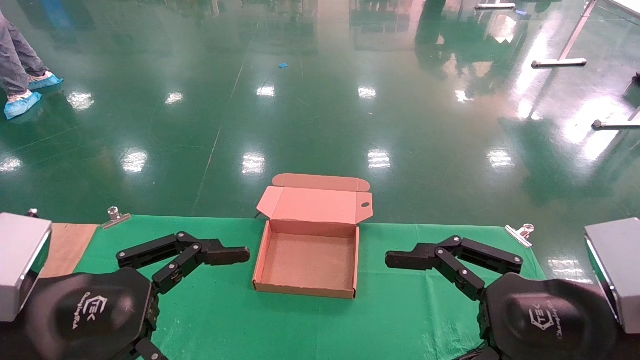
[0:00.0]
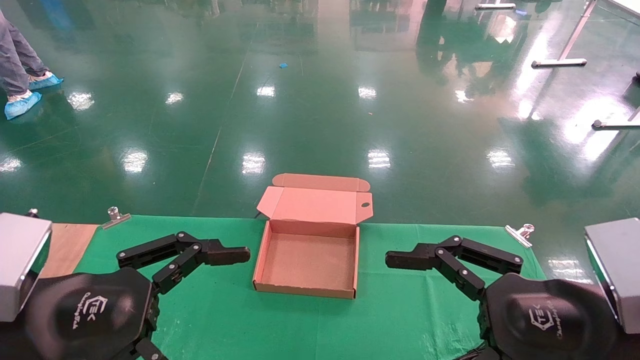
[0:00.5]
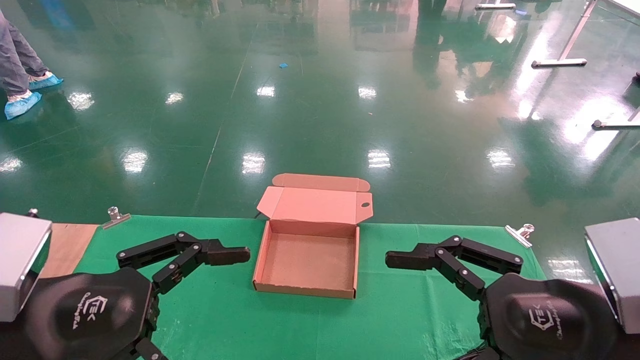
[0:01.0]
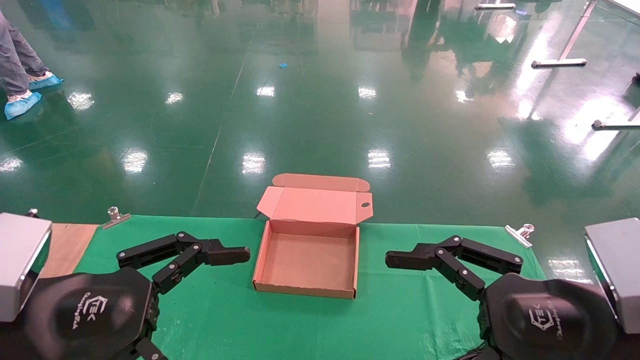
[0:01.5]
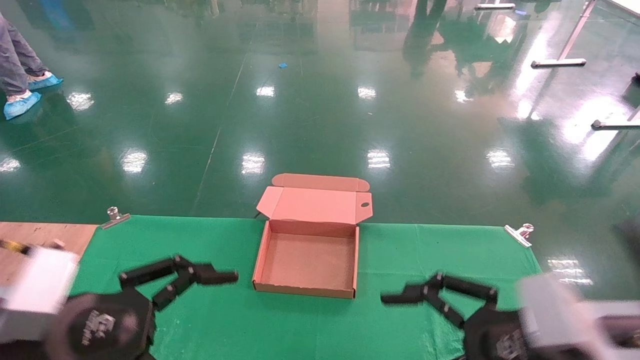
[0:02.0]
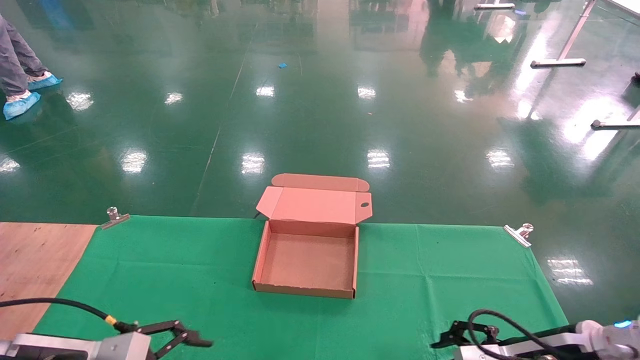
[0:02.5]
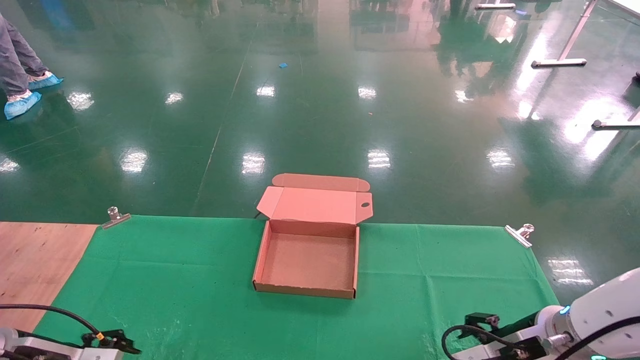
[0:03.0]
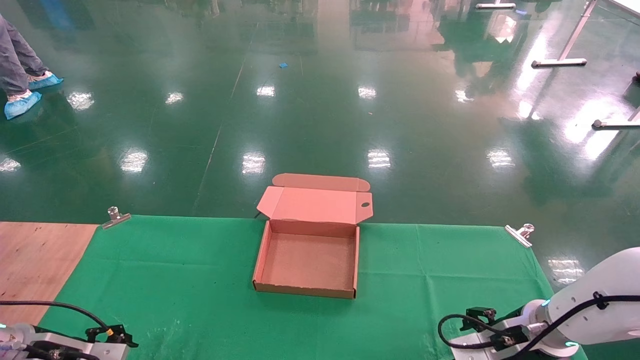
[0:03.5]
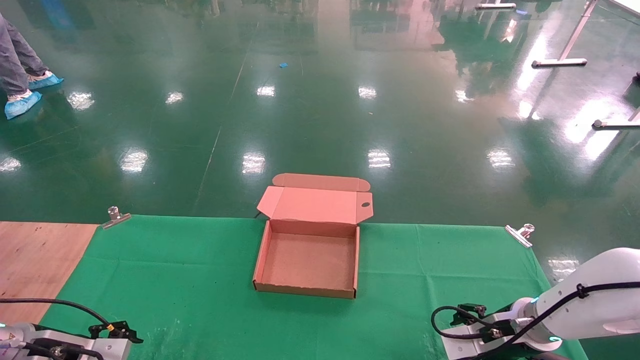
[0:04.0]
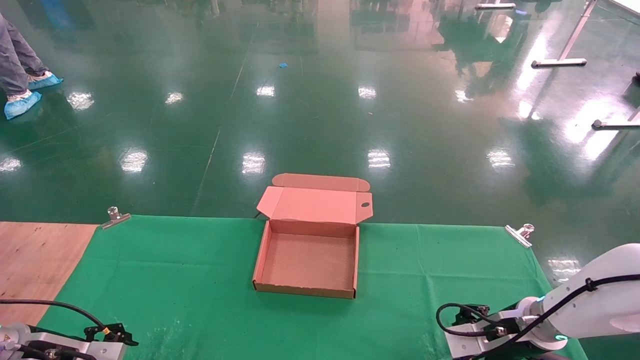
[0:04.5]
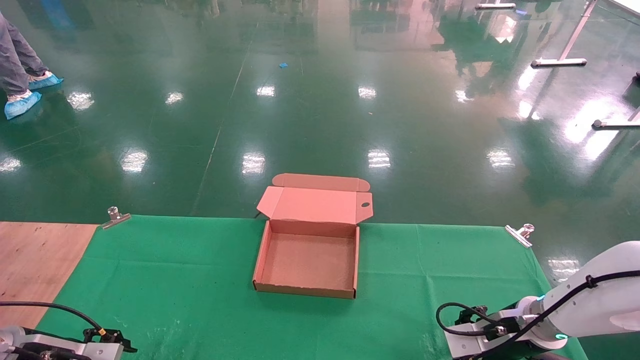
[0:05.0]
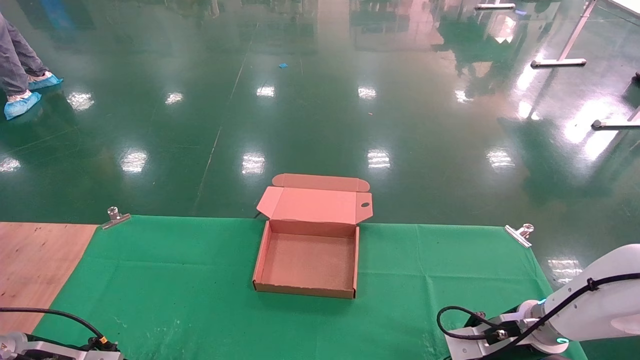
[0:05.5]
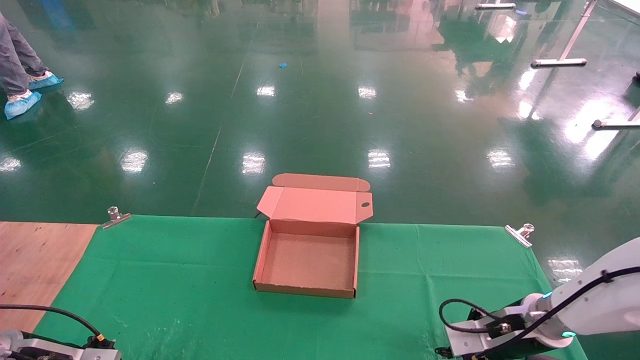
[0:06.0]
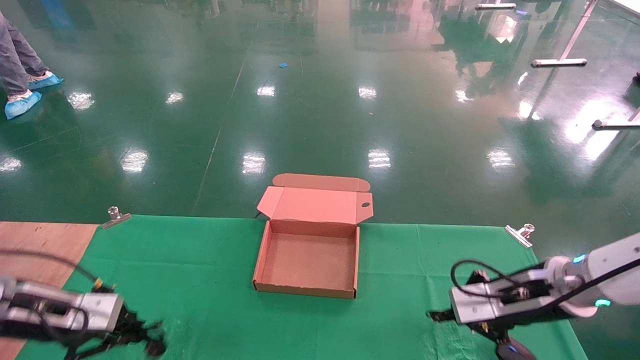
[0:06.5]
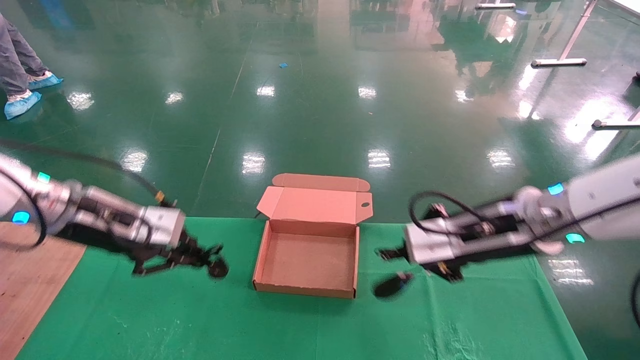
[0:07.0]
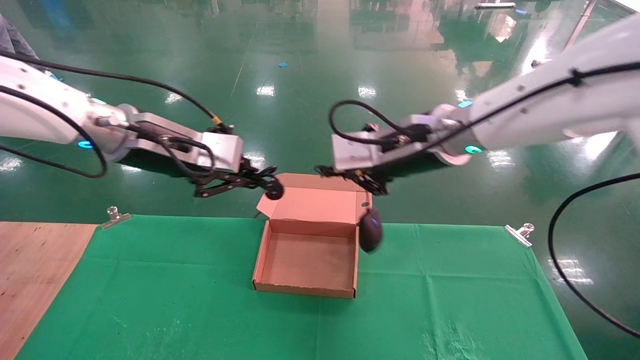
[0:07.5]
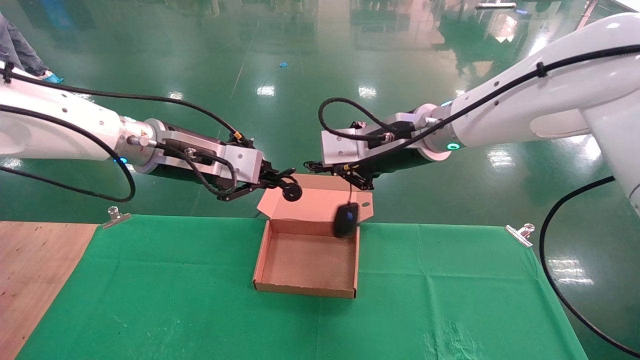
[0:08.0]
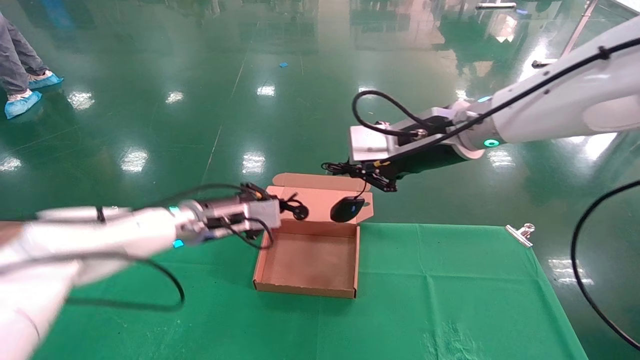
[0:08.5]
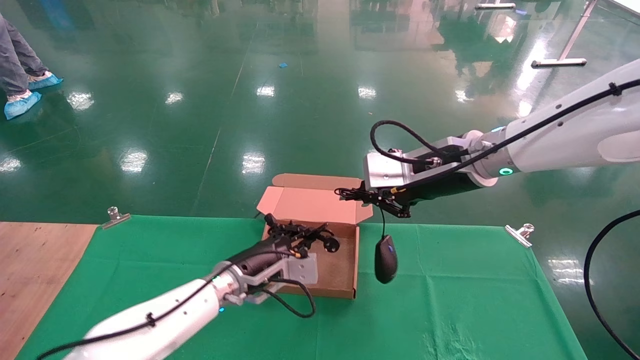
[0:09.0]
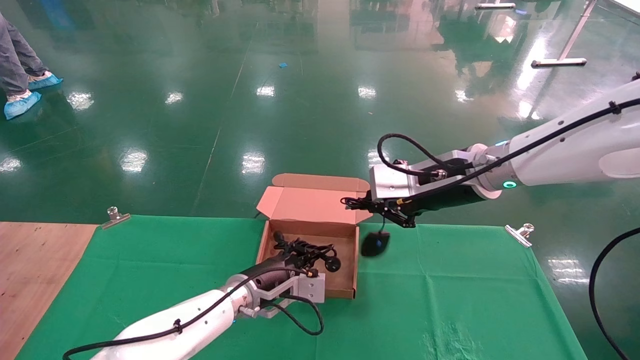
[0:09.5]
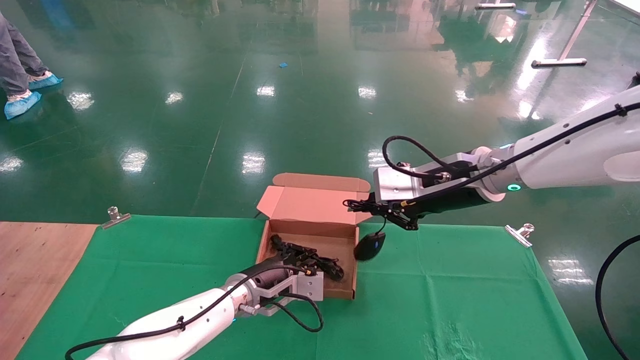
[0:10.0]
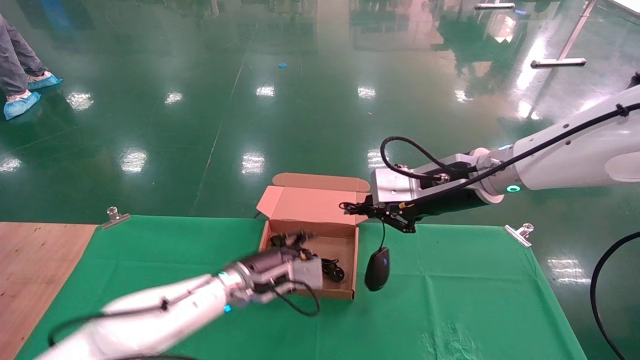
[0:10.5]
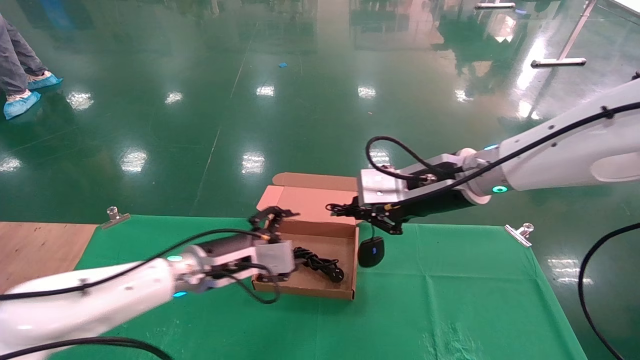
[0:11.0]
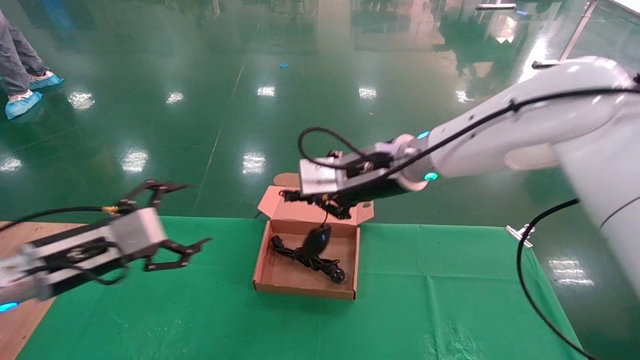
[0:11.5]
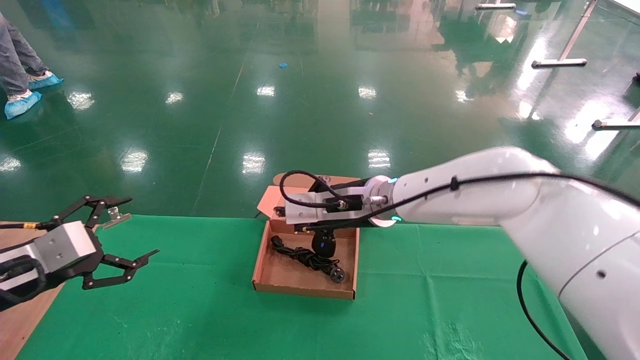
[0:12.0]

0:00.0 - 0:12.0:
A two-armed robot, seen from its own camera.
Step, 0:02.0 - 0:06.5: Grab and lift both the mouse and power cord from the accessory packaging area at the same time.
0:00.0 - 0:02.0: The grippers move only a little.
0:02.0 - 0:04.0: The right gripper travels forward and downward by some 25 cm. The left gripper is displaced forward, downward and to the left by some 25 cm.
0:04.0 - 0:06.0: The left gripper closes up; the right gripper closes.
0:06.0 - 0:08.0: The right gripper travels upward and to the left by approximately 30 cm; the left gripper goes some 35 cm upward and to the right.
0:08.0 - 0:10.0: The right gripper moves to the right and downward, about 10 cm; the left gripper is displaced downward by about 25 cm.
0:10.0 - 0:12.0: The right gripper goes about 15 cm to the left and downward; the left gripper heads to the left and backward, covering approximately 30 cm, and opens up.

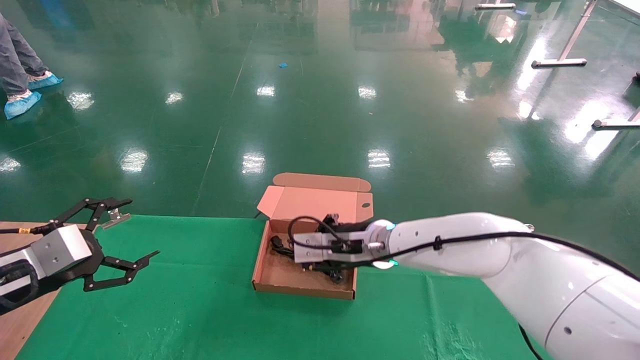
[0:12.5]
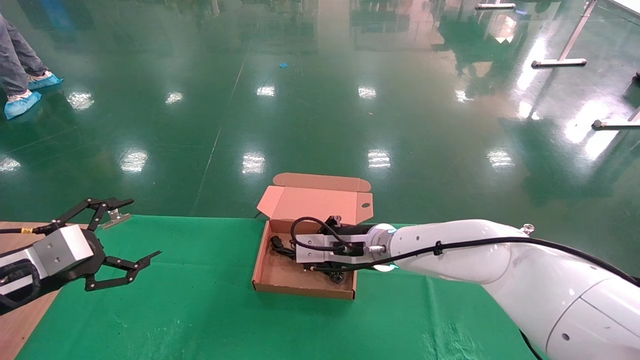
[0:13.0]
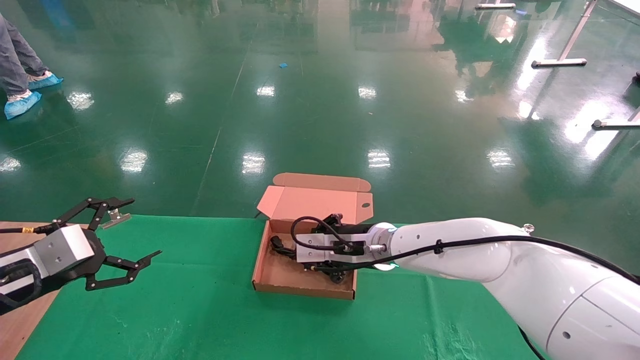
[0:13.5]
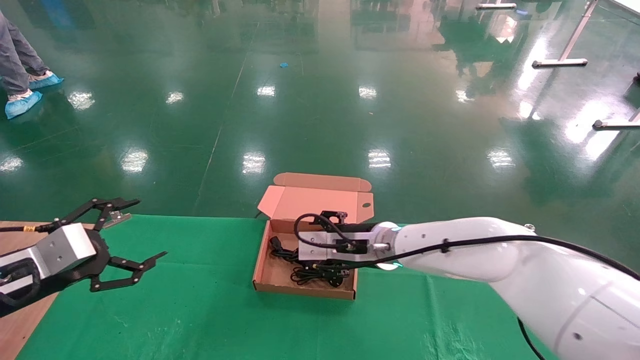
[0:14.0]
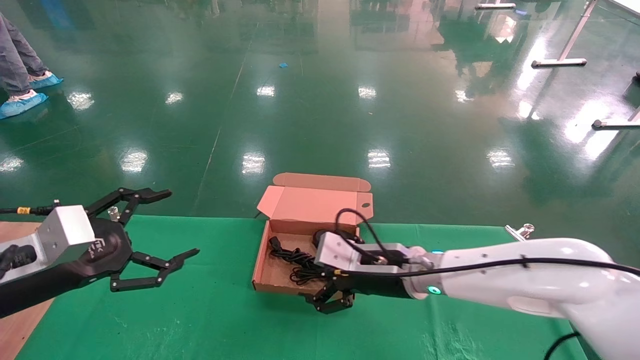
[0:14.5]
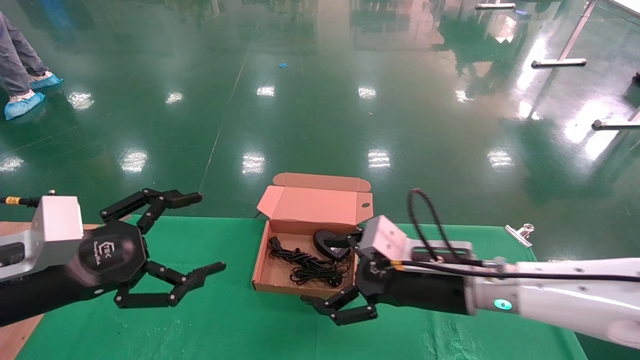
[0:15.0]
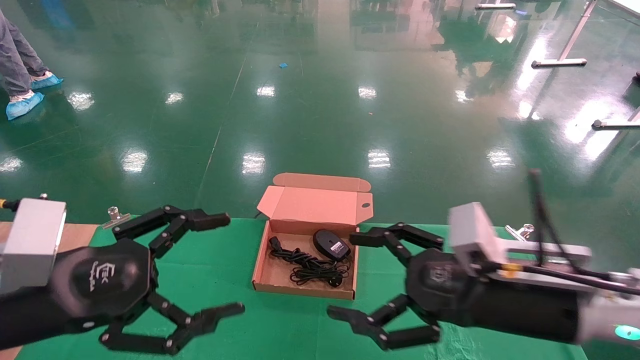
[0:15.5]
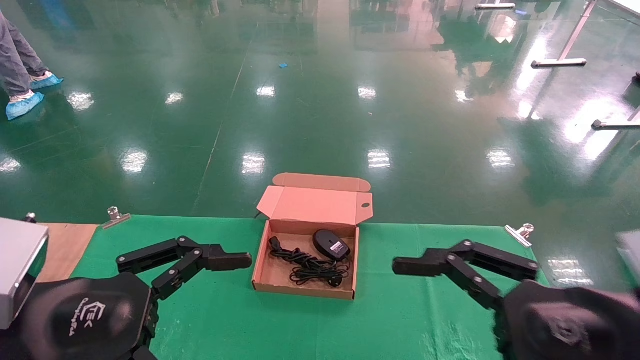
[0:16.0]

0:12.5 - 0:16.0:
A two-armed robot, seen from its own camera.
0:12.5 - 0:14.5: The left gripper moves to the right, about 5 cm. Meanwhile the right gripper shifts about 5 cm backward, and opens its fingers.
0:14.5 - 0:16.0: The right gripper moves backward and to the right, some 25 cm. Meanwhile the left gripper heads backward and to the right, covering approximately 15 cm.

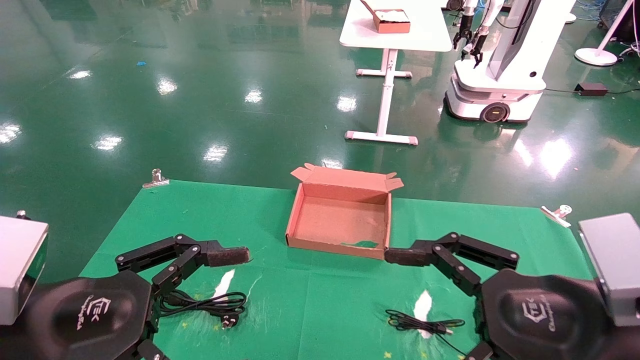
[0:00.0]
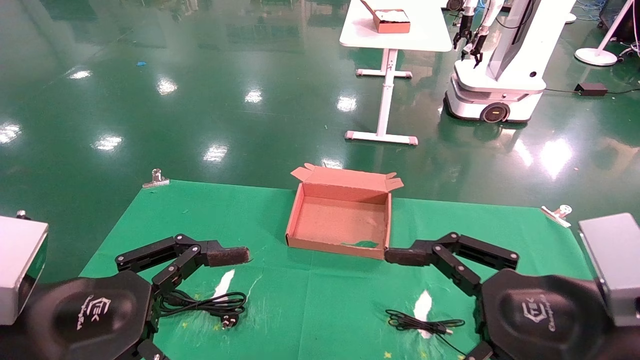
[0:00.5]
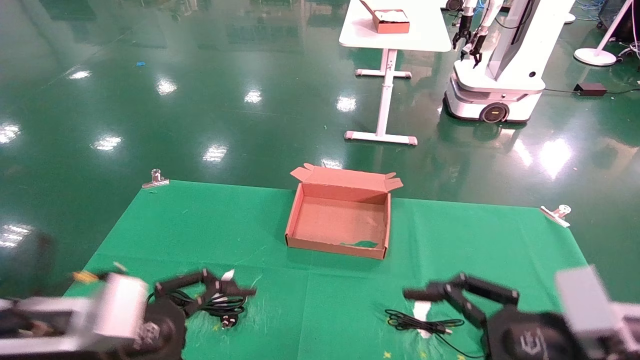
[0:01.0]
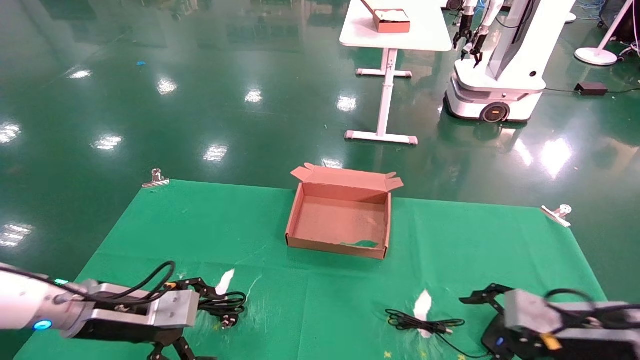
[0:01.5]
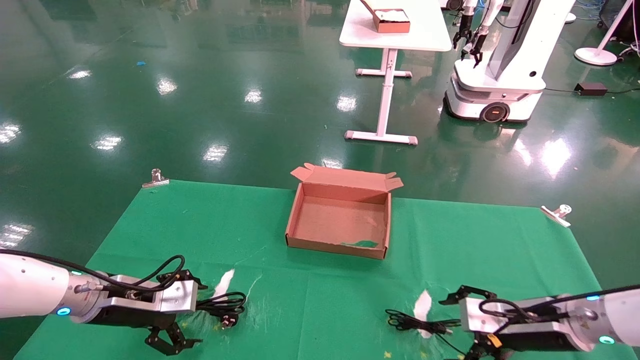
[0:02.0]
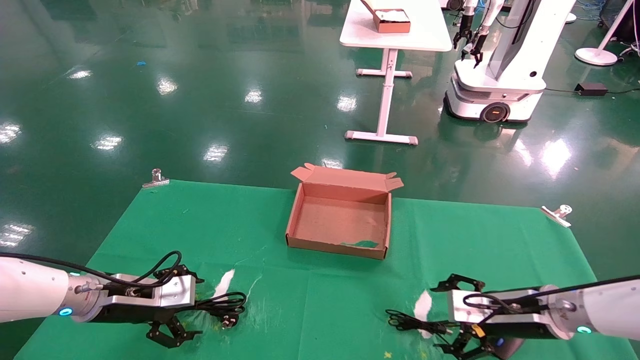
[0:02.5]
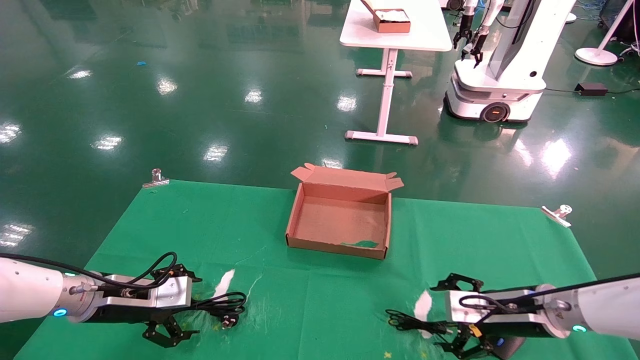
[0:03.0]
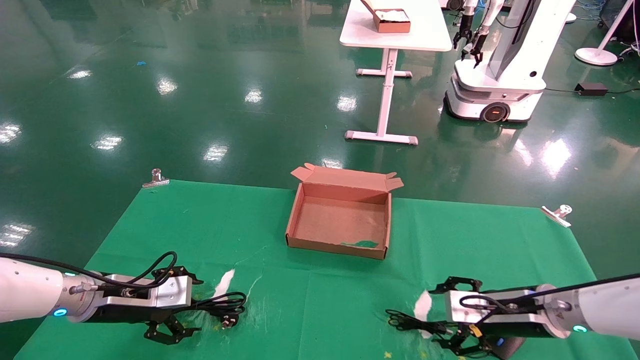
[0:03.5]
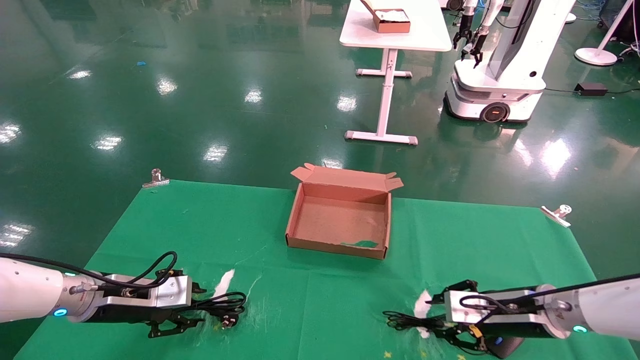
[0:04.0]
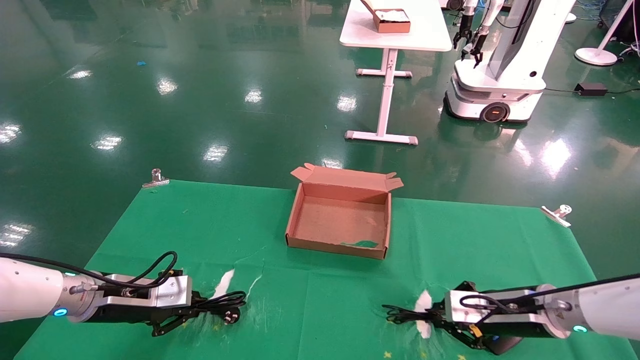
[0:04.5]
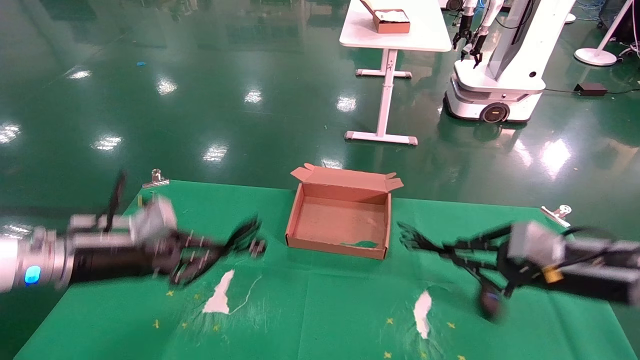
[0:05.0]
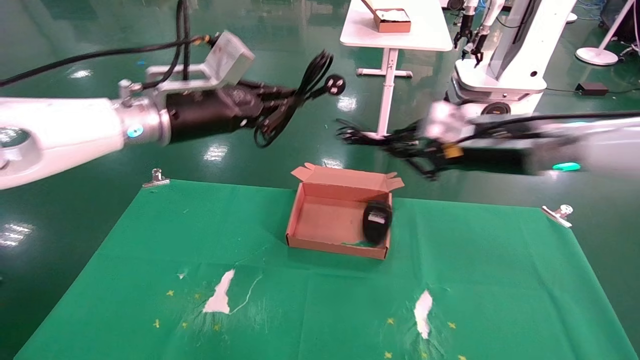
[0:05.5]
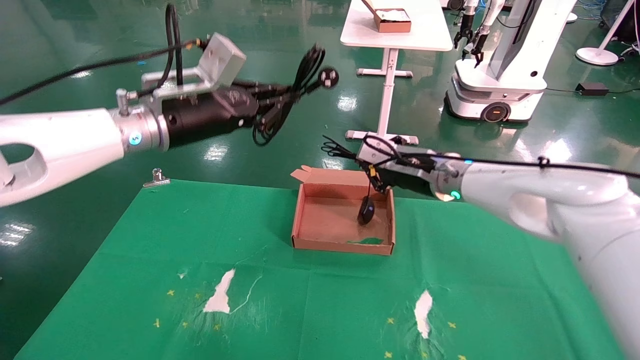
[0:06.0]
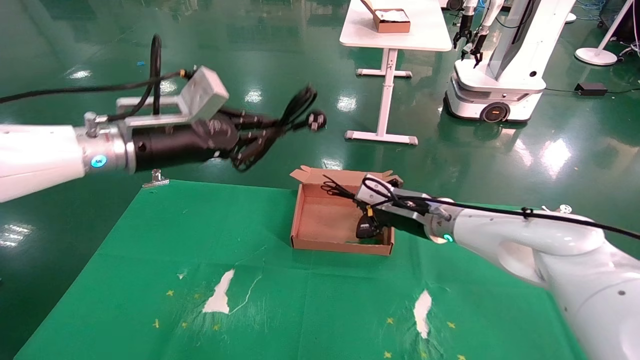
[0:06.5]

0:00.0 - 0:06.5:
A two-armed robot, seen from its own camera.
Step, 0:01.5 - 0:04.5: Grab and lift both the mouse and power cord from the accessory packaging area at the same time.
0:00.0 - 0:02.0: Both grippers travel together forward and downward, roughly 25 cm.
0:02.0 - 0:04.5: The right gripper closes up. Meanwhile the left gripper closes its fingers.
0:04.5 - 0:06.5: The right gripper moves to the left, upward and forward, about 20 cm; the left gripper travels upward and to the right by about 25 cm.
